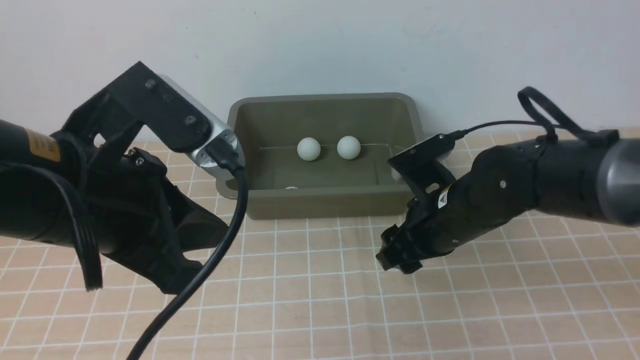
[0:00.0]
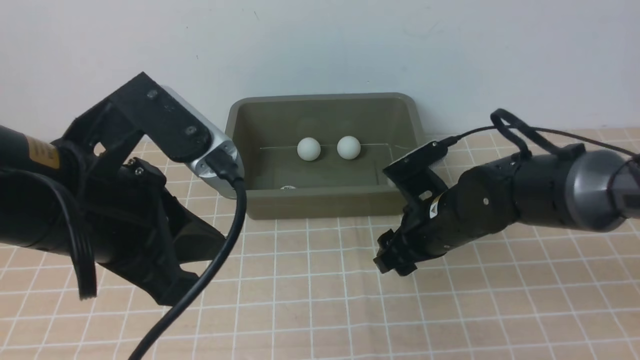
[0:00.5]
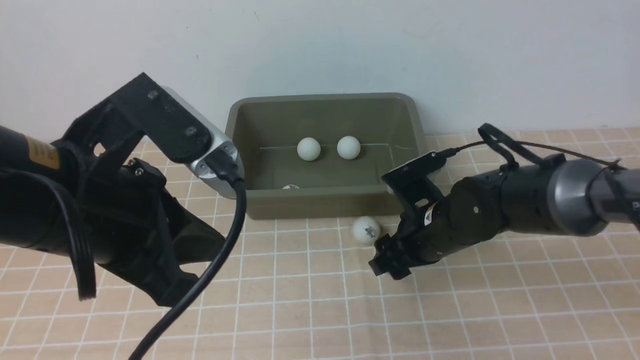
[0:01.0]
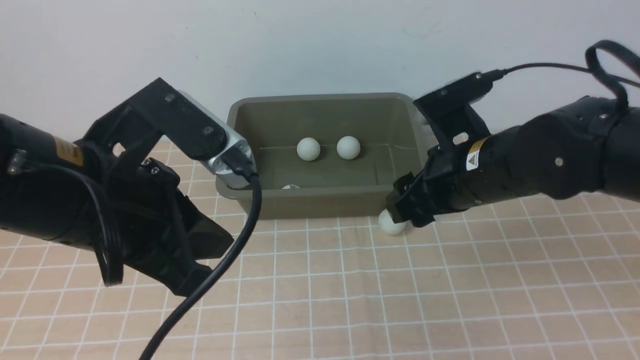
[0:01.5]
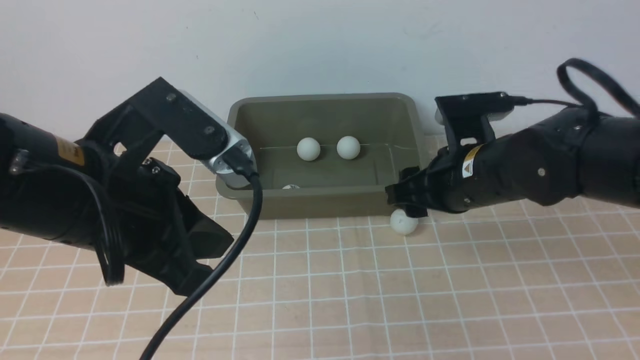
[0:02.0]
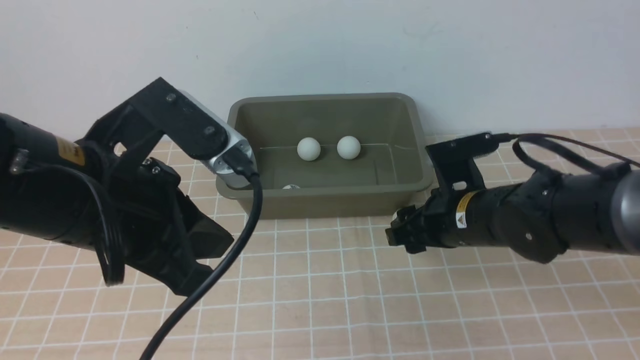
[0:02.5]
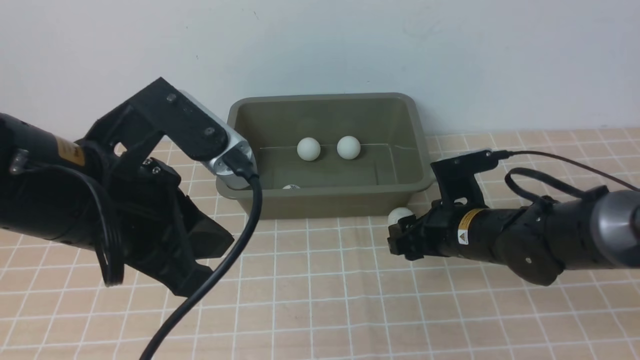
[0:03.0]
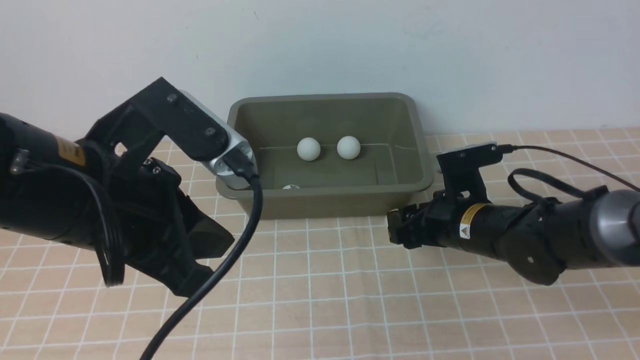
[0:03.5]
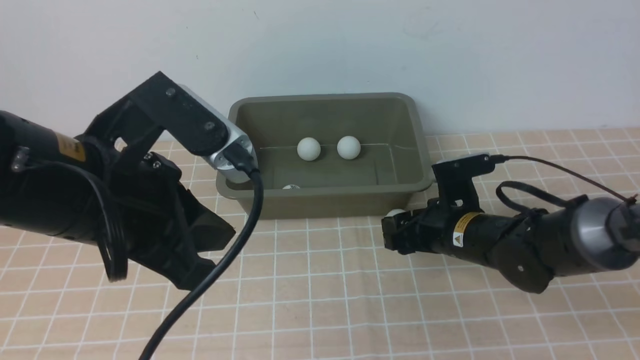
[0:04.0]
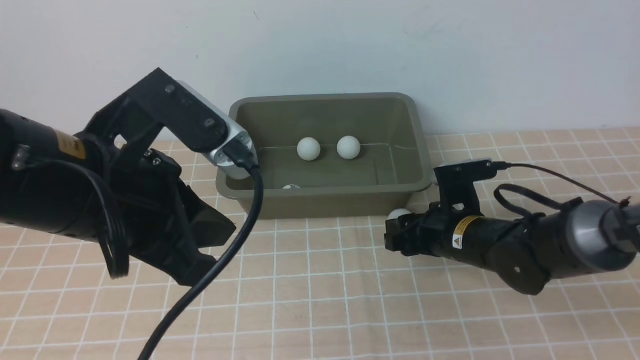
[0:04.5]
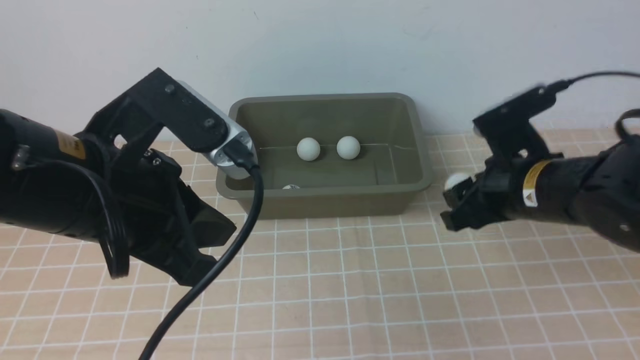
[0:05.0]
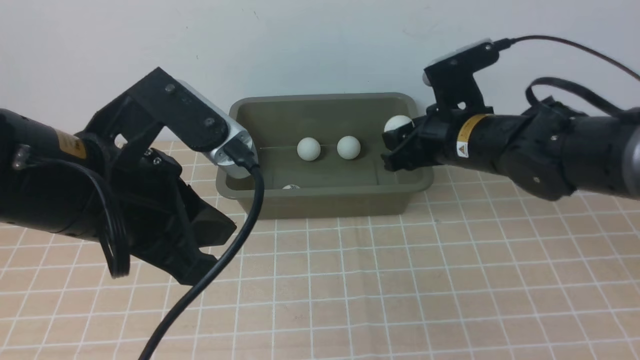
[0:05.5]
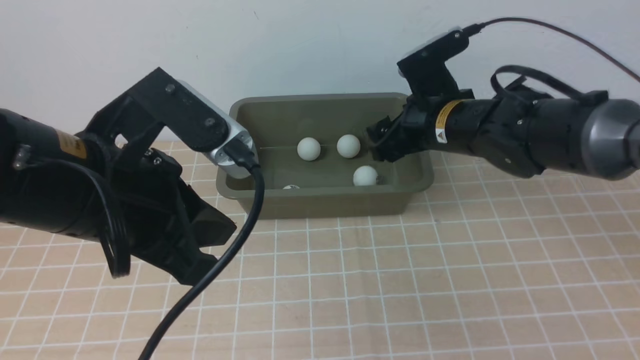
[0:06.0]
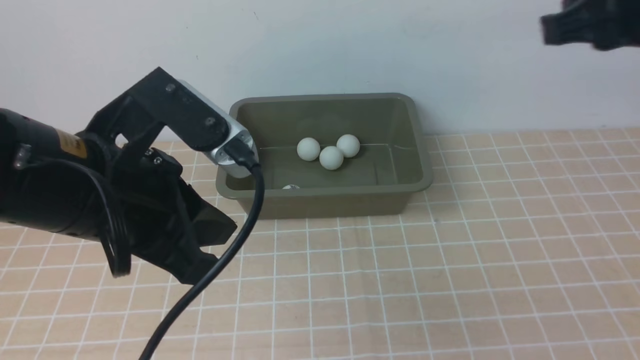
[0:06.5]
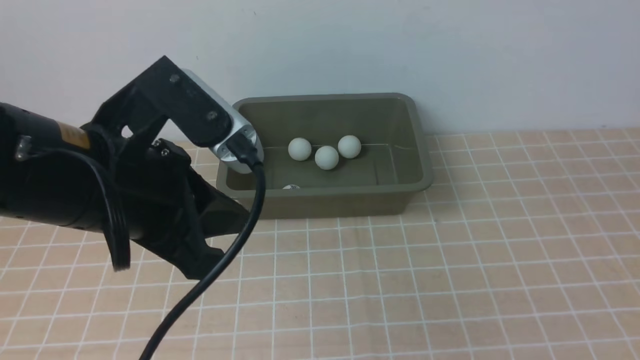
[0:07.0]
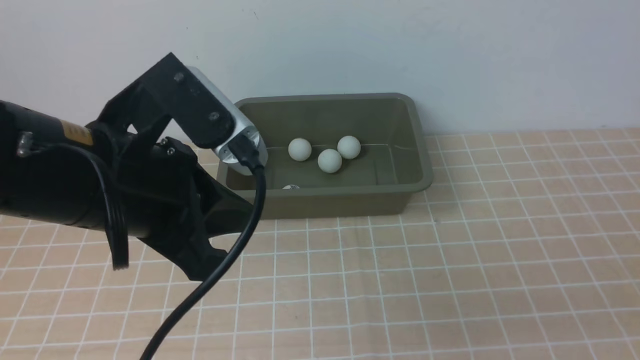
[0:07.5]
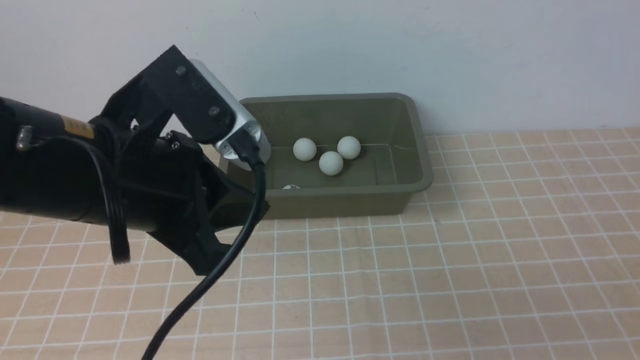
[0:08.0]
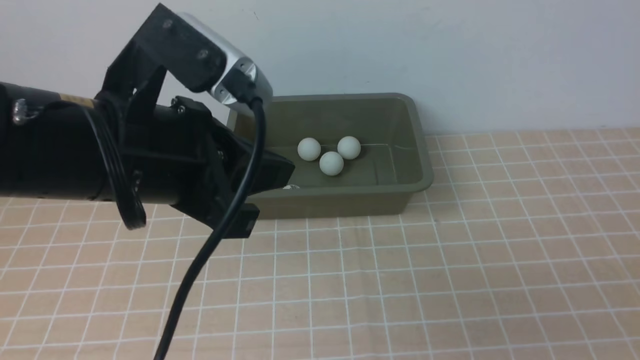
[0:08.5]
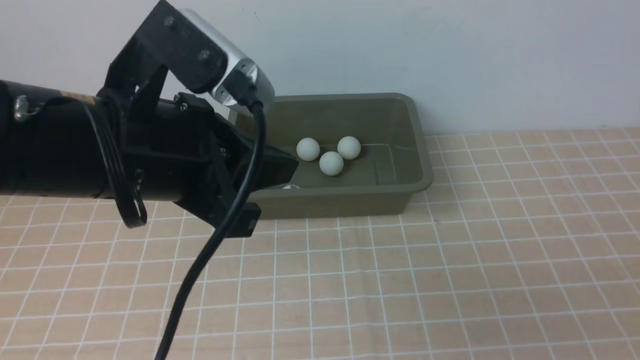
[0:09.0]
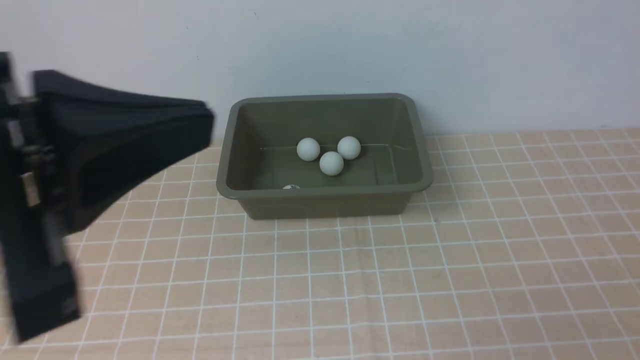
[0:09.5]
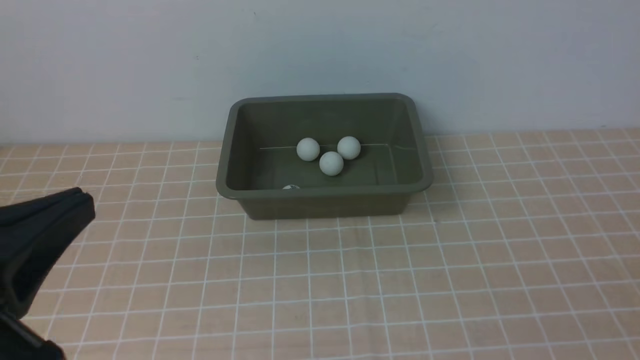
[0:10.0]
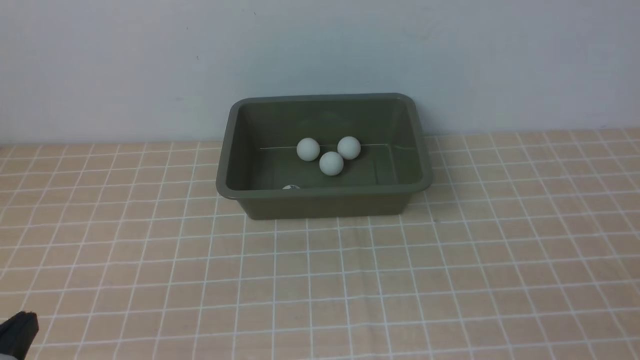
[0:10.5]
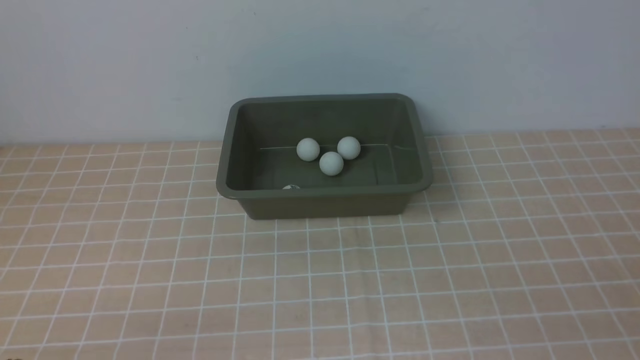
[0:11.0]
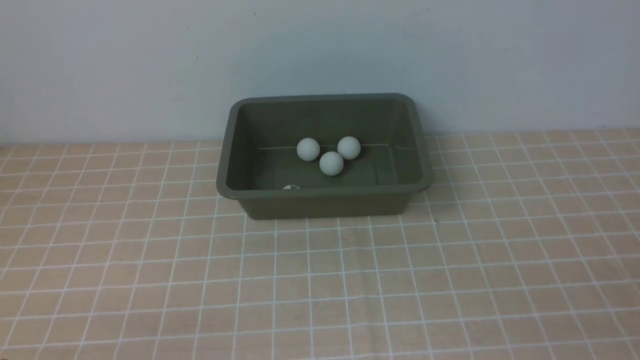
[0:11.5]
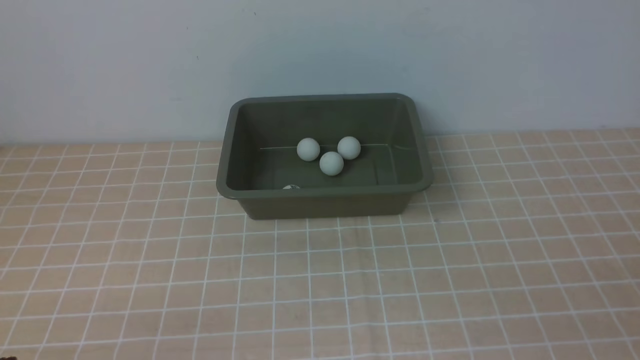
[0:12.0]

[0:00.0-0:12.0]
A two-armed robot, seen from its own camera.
Step, 0:00.0 to 0:04.5: use the right arm to clamp the table tennis ball closest to it.
Step, 0:05.0 to 0:05.5: use the right arm to put the table tennis ball into the box.
0:02.0 to 0:04.0: The right gripper travels downward by approximately 10 cm.
0:04.0 to 0:06.0: The right gripper goes about 15 cm upward.
0:06.0 to 0:08.0: The right gripper is displaced backward and to the right by about 40 cm, and closes.
0:08.0 to 0:10.0: The left gripper goes roughly 15 cm backward and to the left.
0:10.0 to 0:12.0: The left gripper heads downward, covering some 15 cm.

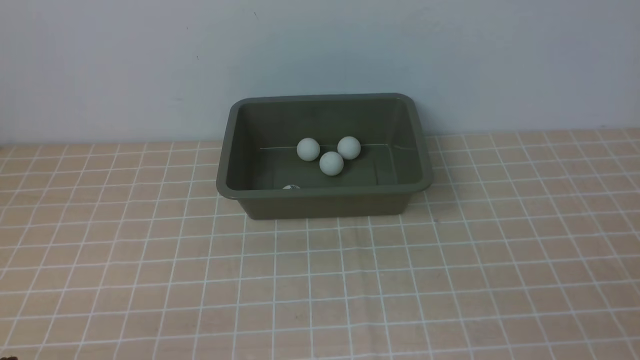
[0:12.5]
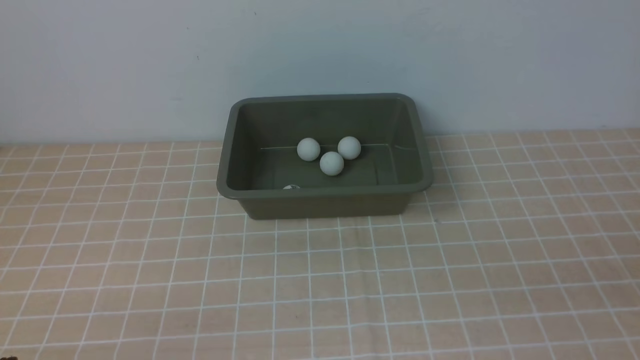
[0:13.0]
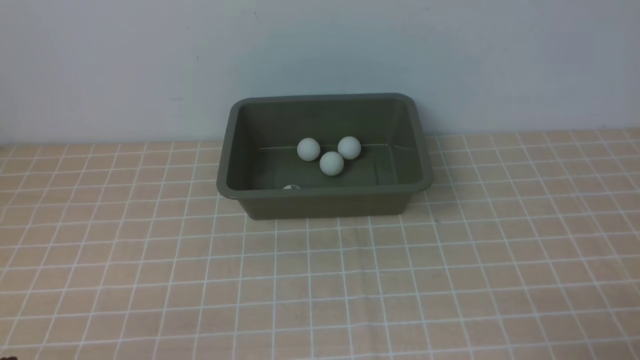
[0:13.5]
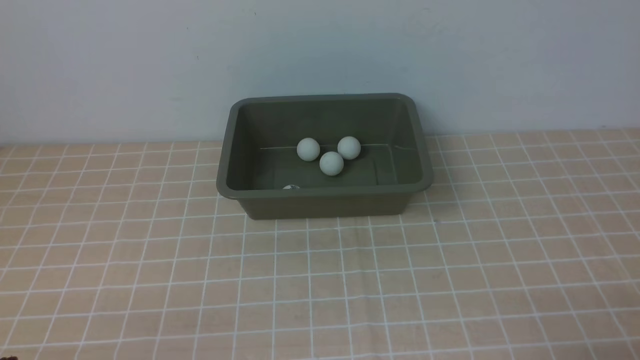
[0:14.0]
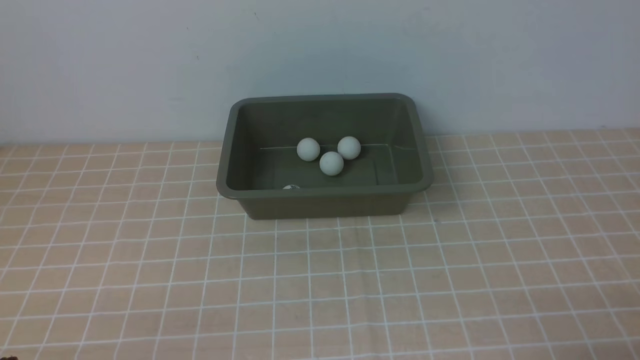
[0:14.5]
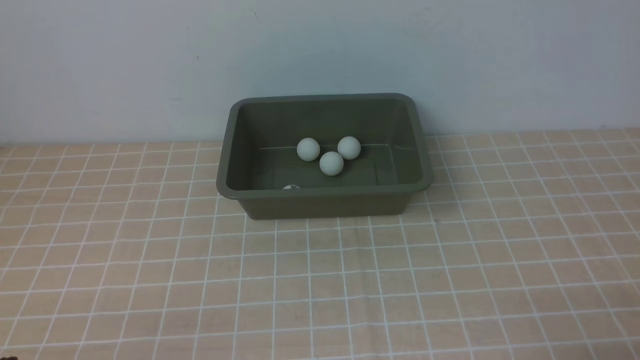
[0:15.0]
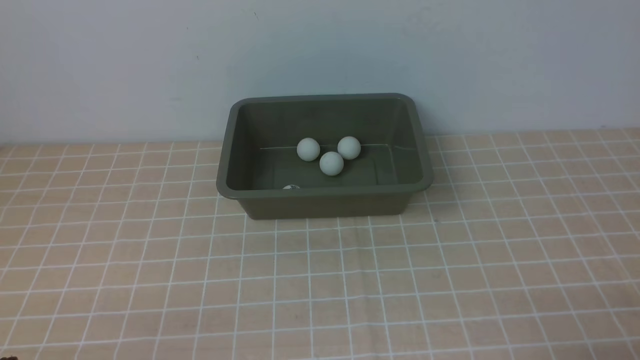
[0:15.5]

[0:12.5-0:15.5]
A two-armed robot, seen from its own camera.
0:14.0 to 0:15.5: Both grippers stay put.

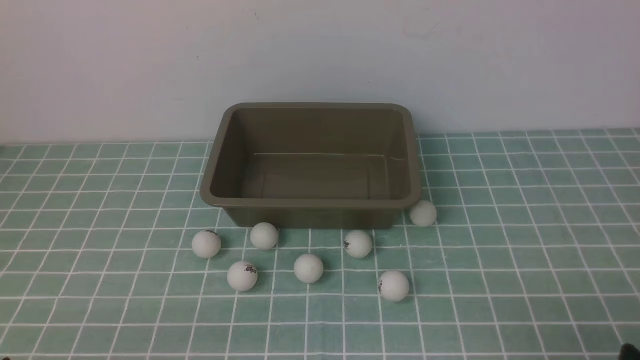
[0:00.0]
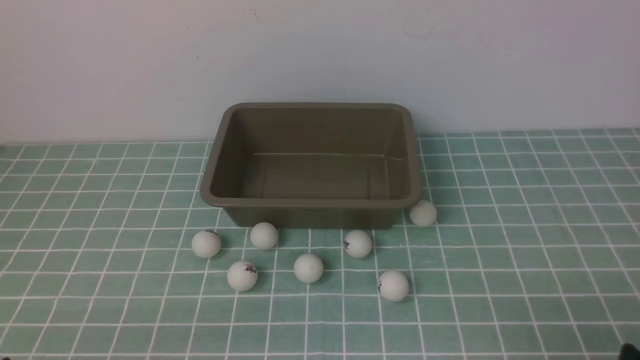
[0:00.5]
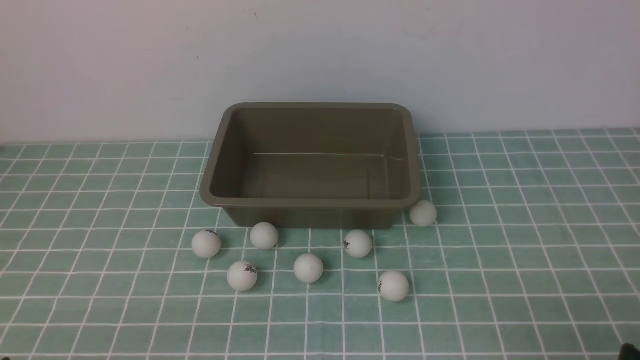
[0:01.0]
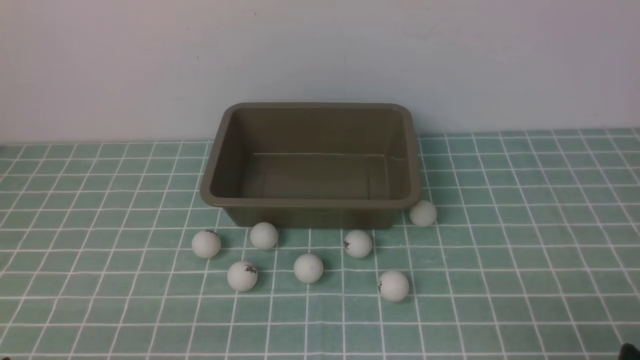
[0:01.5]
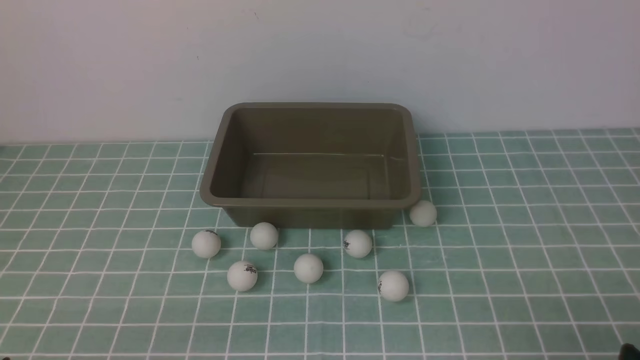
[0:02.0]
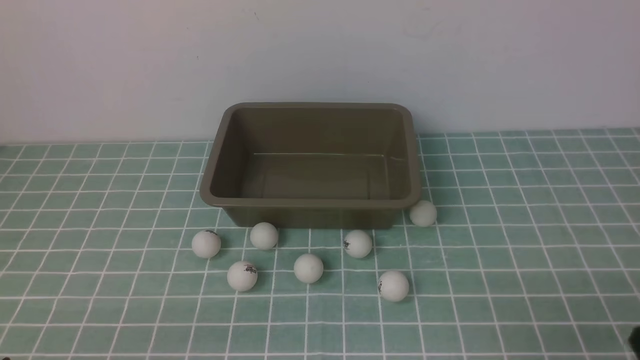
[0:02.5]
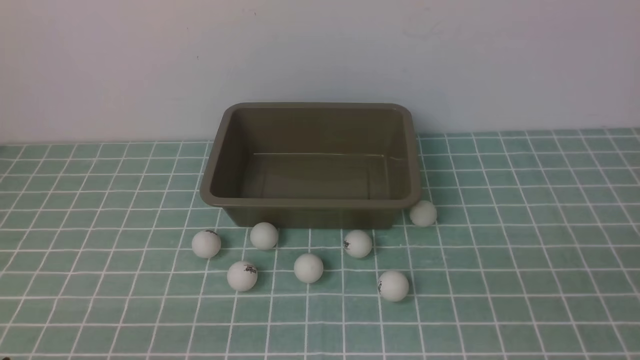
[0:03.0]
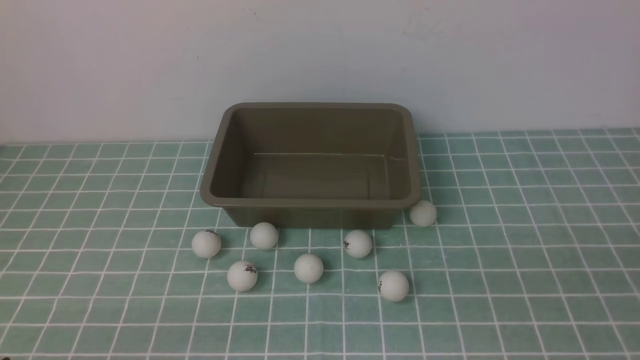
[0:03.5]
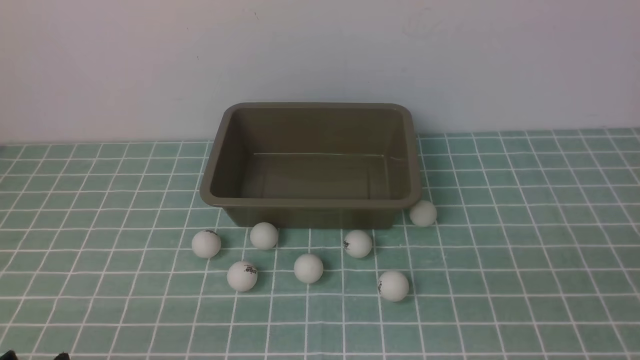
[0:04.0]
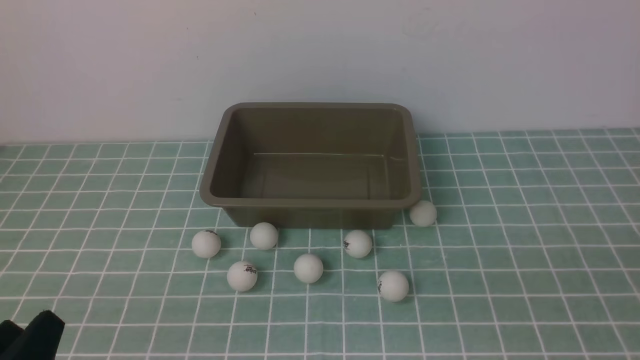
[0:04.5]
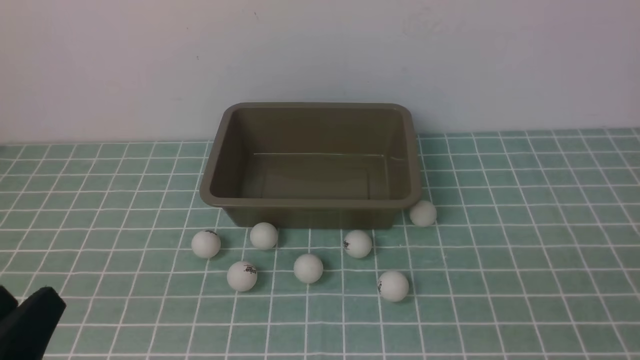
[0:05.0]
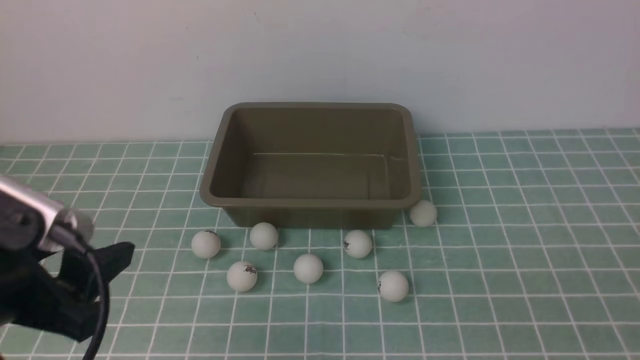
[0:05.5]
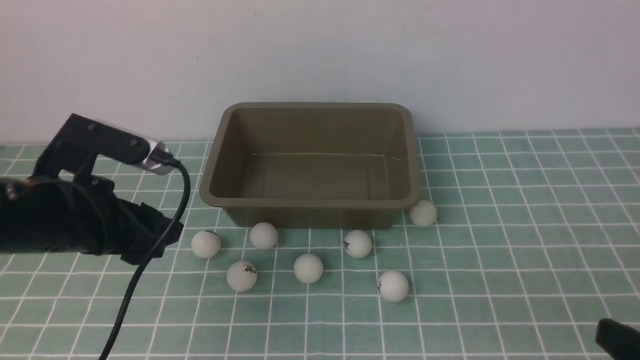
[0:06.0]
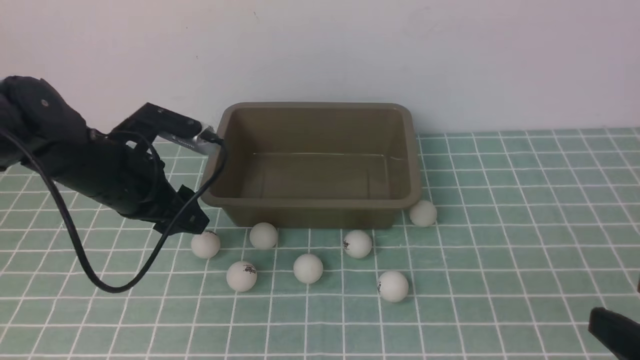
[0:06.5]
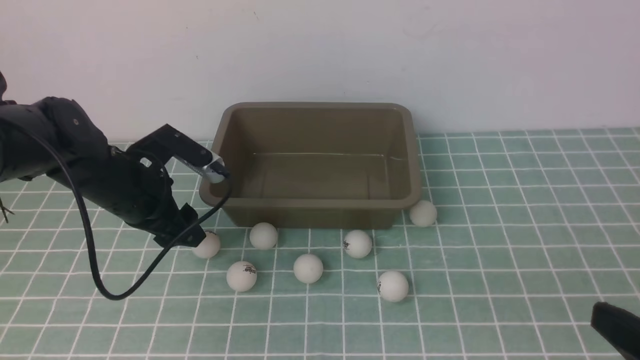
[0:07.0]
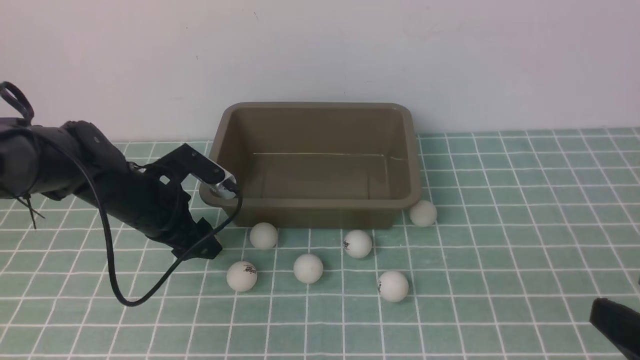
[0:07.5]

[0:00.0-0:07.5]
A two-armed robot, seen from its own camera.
0:00.0 to 0:02.0: Both grippers stay about where they are.
0:04.0 to 0:05.5: The left gripper heads upward and forward, covering roughly 15 cm.
0:05.5 to 0:07.5: The left gripper moves forward and downward, about 30 cm.
